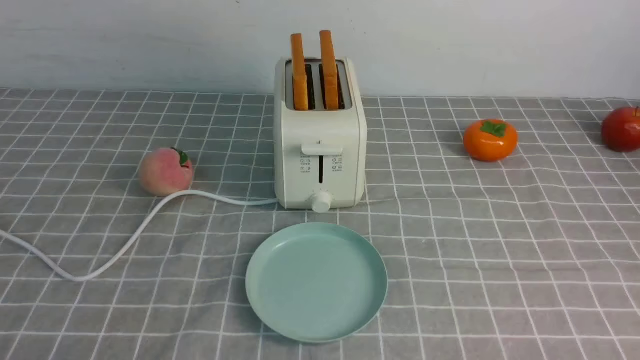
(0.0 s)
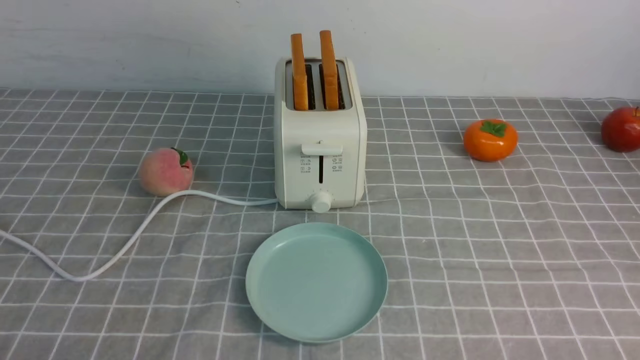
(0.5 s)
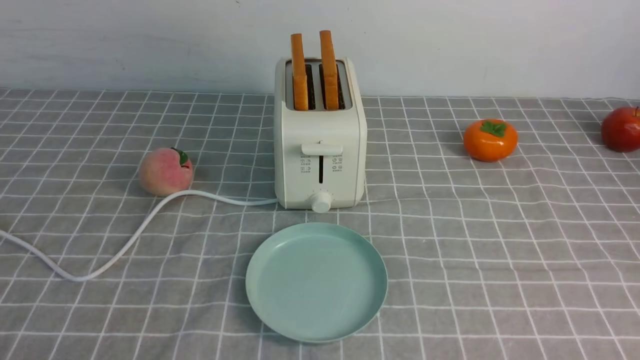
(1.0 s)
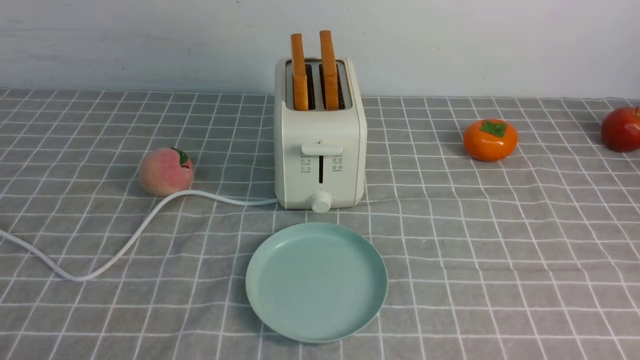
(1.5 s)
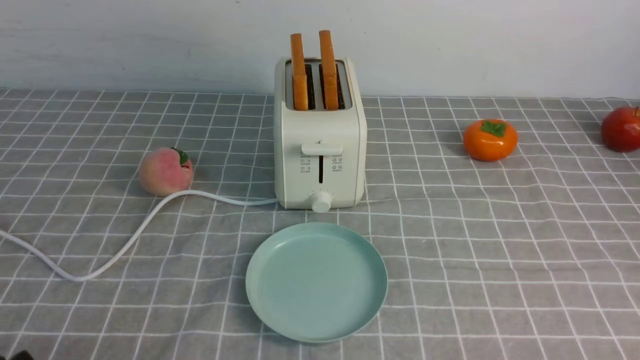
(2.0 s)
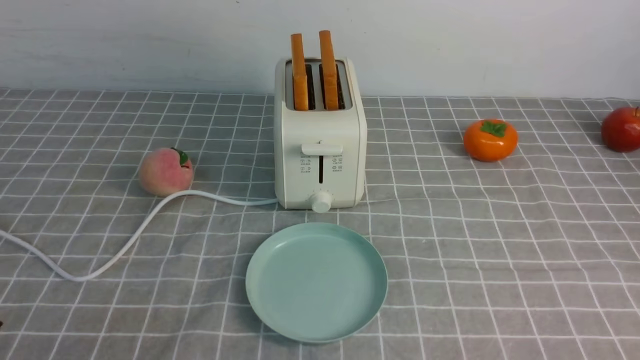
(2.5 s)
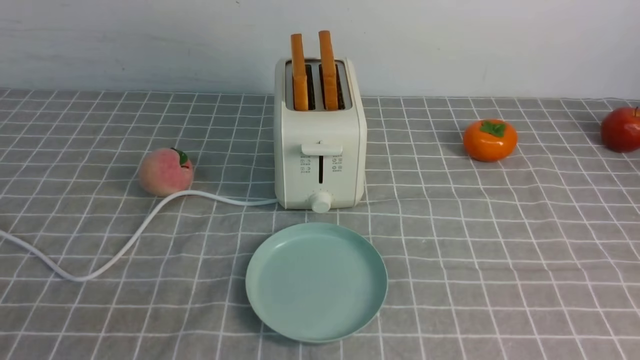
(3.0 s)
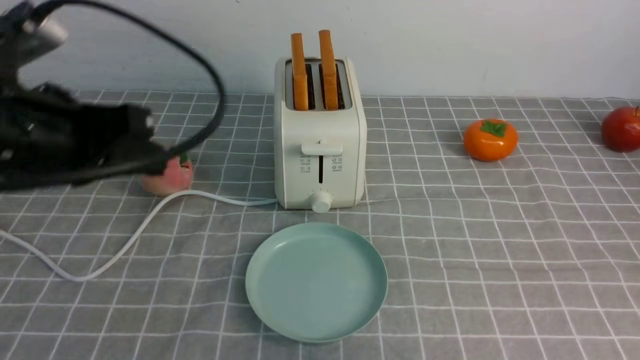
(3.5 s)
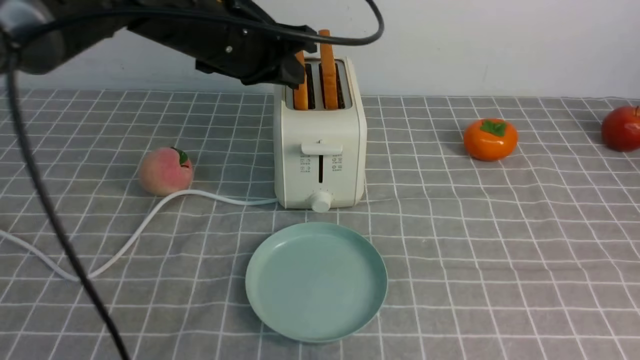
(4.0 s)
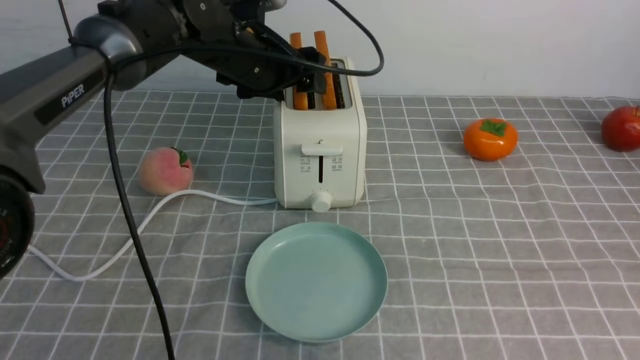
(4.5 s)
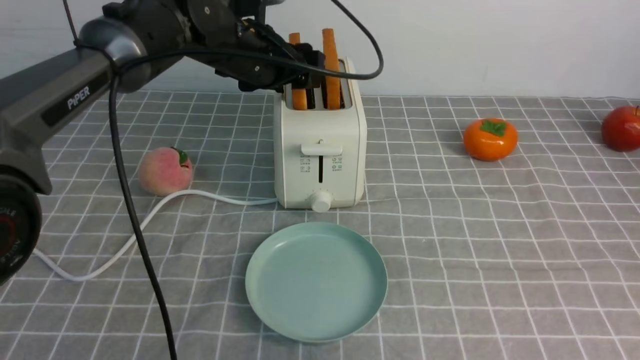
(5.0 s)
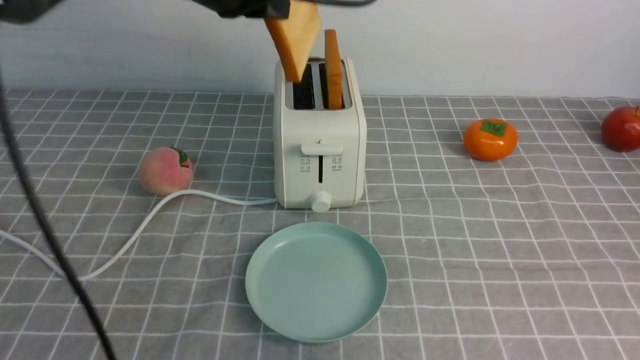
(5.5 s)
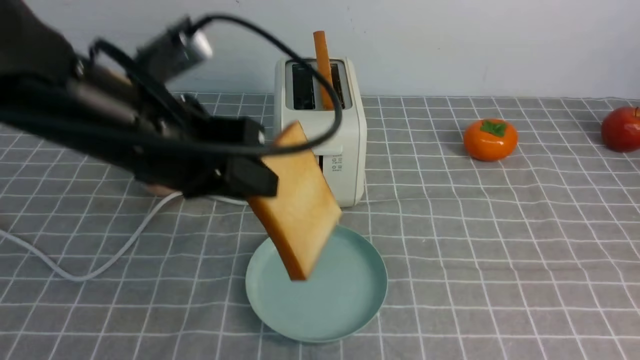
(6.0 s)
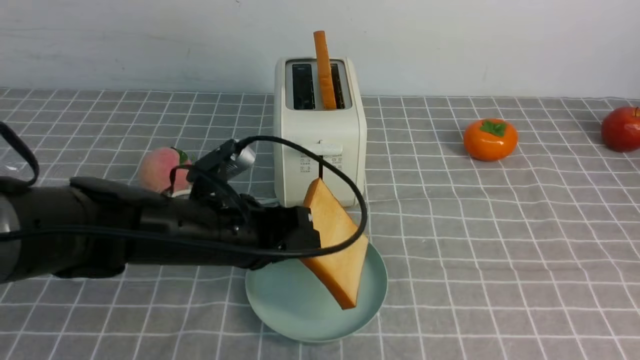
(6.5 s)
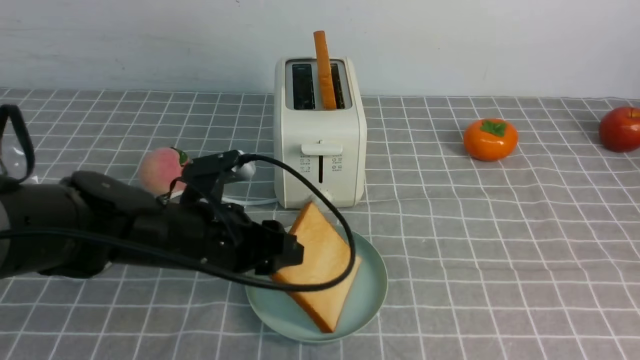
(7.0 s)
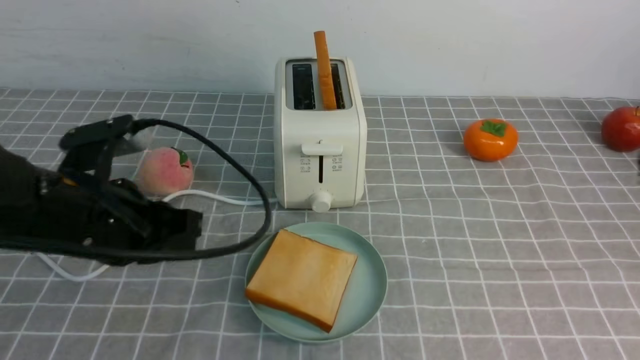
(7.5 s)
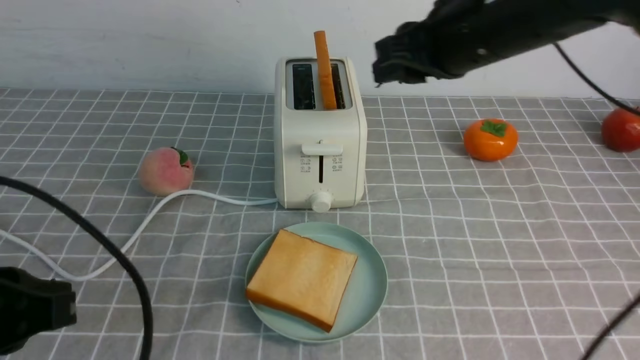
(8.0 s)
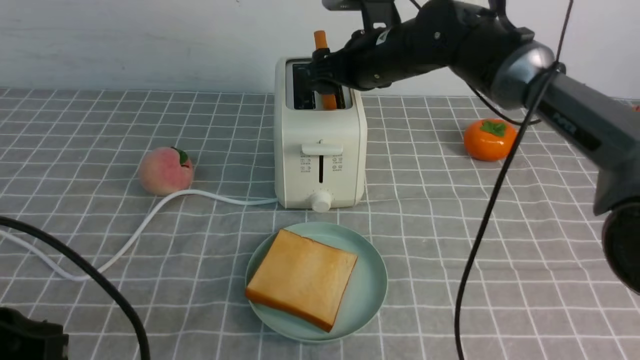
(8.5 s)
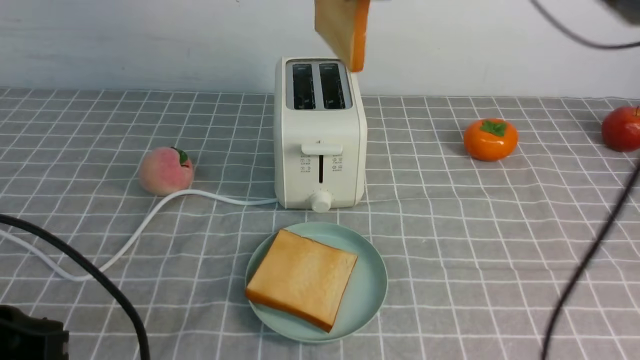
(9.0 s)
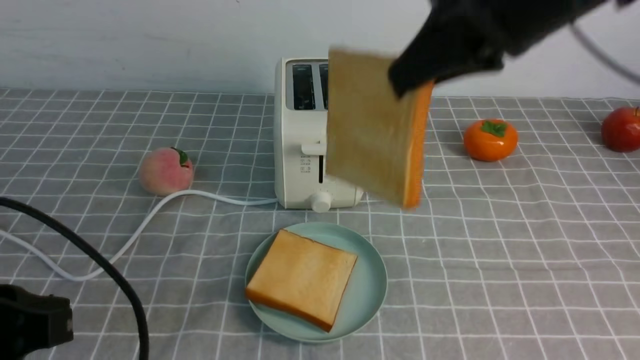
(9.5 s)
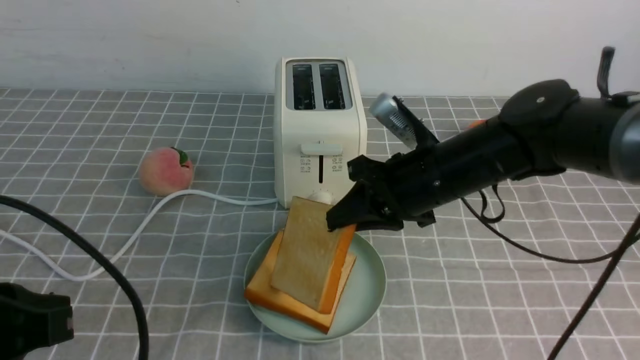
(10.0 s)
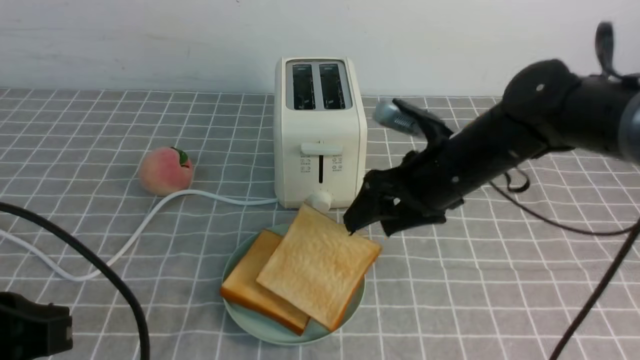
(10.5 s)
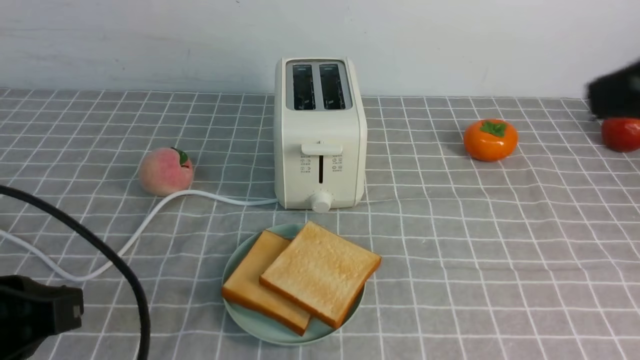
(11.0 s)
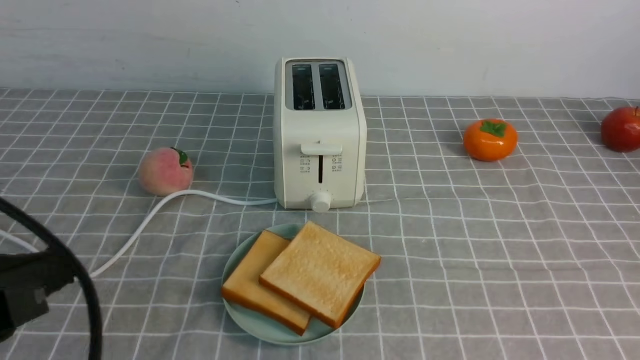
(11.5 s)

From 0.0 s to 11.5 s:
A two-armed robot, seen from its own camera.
Task of the whole recording: take toasted bread from bread machine on grey coffee table place on plate.
Step, from 0.0 s to 5.5 s: use the left arm to take out a slice of bread.
Step, from 6.0 s to 7.0 s: use the left arm to put a slice of bread into the empty plate.
Step, from 7.5 s to 9.0 s: use the right arm to take out a slice of bread.
Step, from 9.5 s to 10.5 s: use the right arm to put a slice of bread into the plate.
From 2.0 s to 4.0 s: The left gripper heads forward, upward and to the right, covering some 40 cm. Meanwhile the right gripper goes approximately 20 cm upward, and closes.
From 4.0 s to 6.0 s: The left gripper heads backward, covering roughly 15 cm, and opens, then closes again.
From 6.0 s to 7.5 s: The left gripper heads downward and to the left, covering approximately 10 cm, and opens and closes again; the right gripper is displaced forward by about 5 cm.
From 7.5 s to 9.5 s: The left gripper moves backward, some 10 cm; the right gripper moves forward and to the left, approximately 15 cm, and opens and closes again.
From 9.5 s to 11.5 s: The right gripper is displaced backward, to the right and downward by some 35 cm, and opens and closes again.

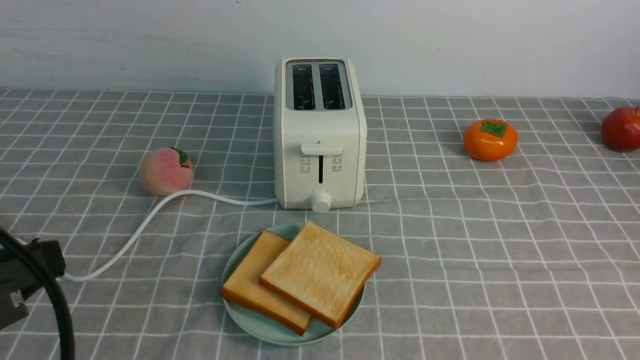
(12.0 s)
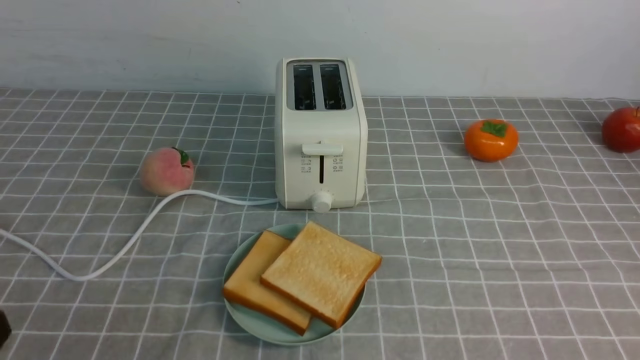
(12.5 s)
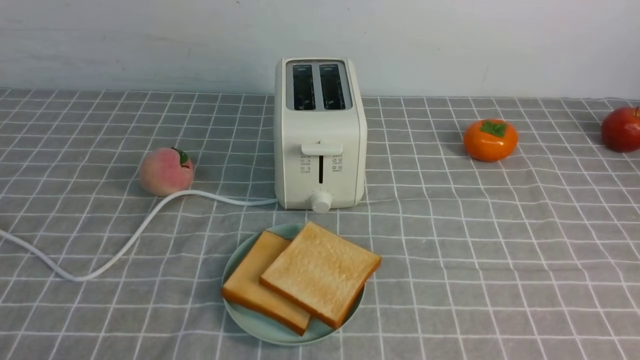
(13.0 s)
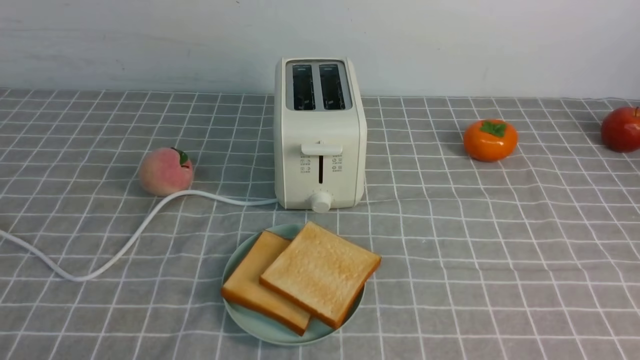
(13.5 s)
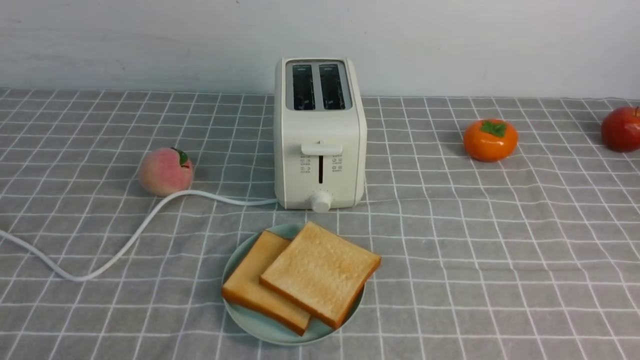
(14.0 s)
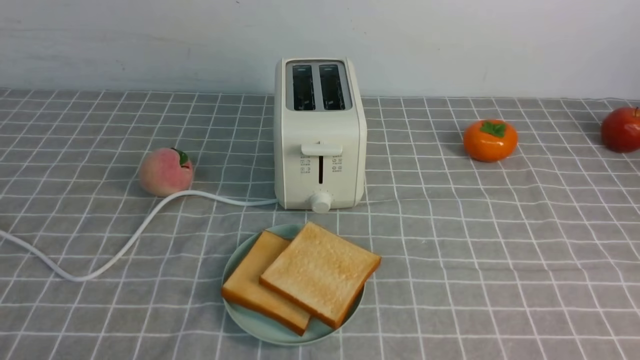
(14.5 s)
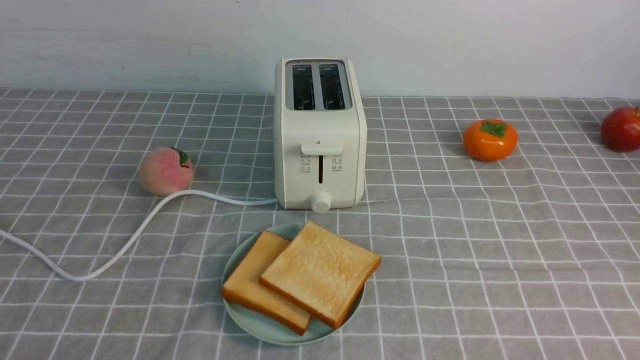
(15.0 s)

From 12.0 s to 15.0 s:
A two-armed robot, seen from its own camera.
Task of the whole recording: take toasted bread from bread machine on grey coffee table place on plate.
From 12.0 s to 13.5 s: The left gripper is displaced downward by about 15 cm.

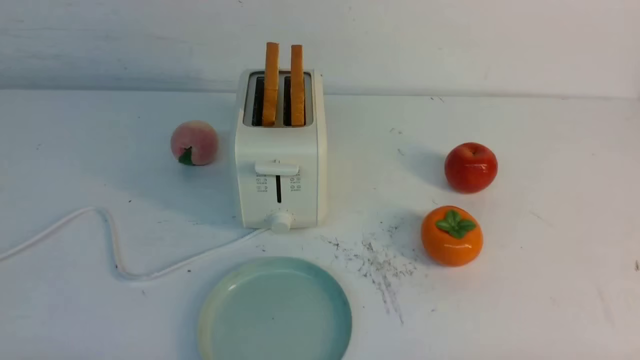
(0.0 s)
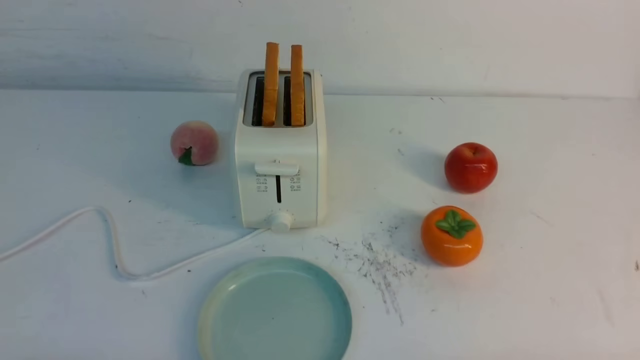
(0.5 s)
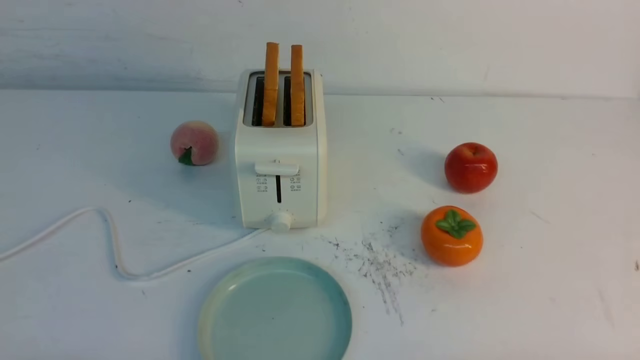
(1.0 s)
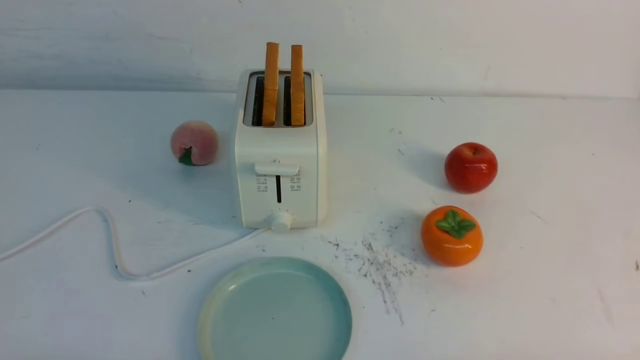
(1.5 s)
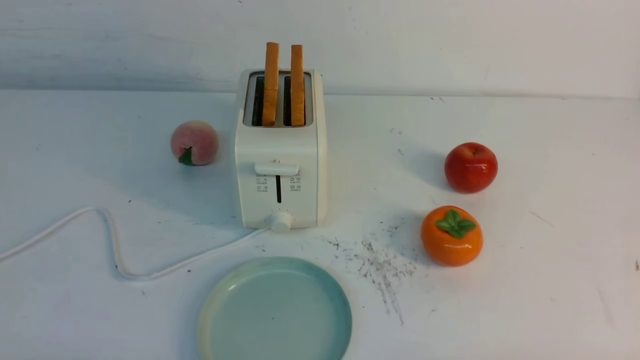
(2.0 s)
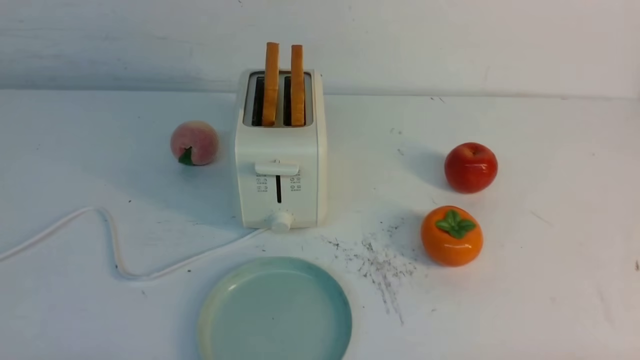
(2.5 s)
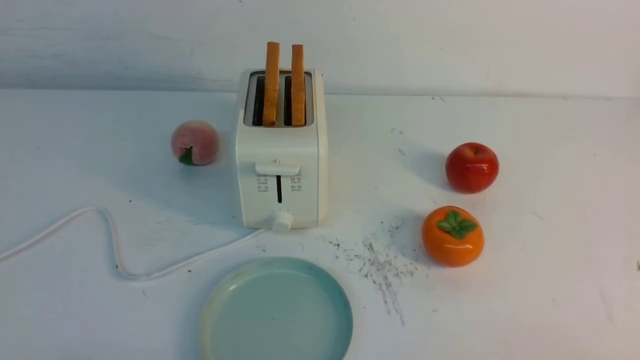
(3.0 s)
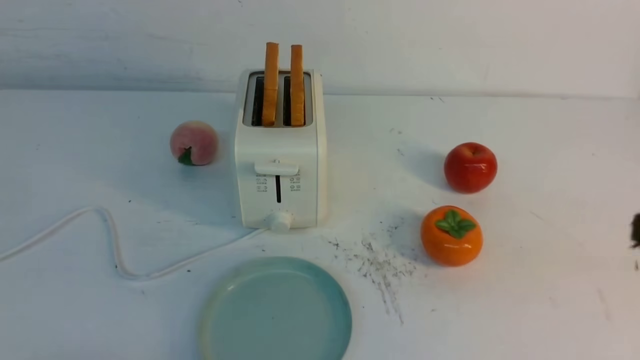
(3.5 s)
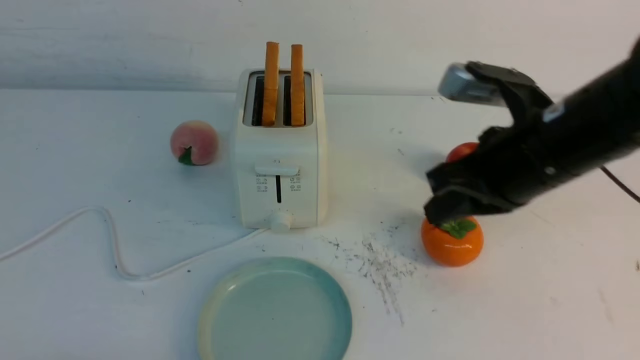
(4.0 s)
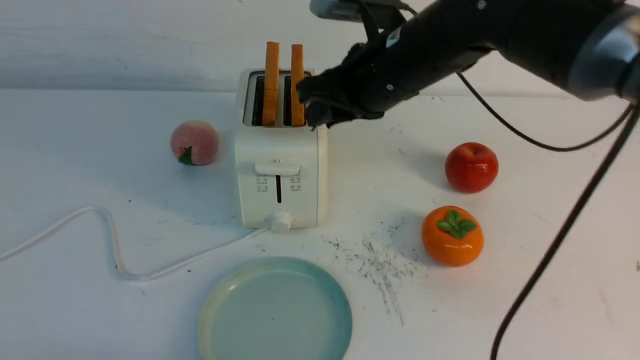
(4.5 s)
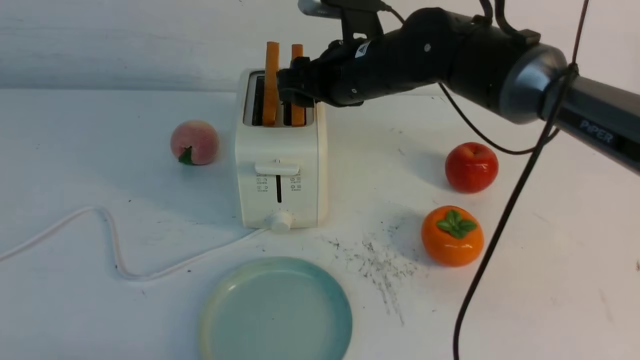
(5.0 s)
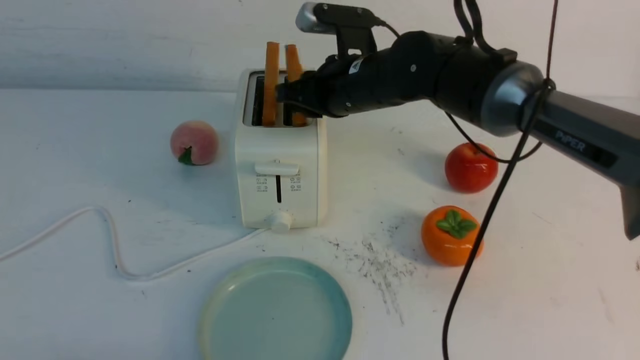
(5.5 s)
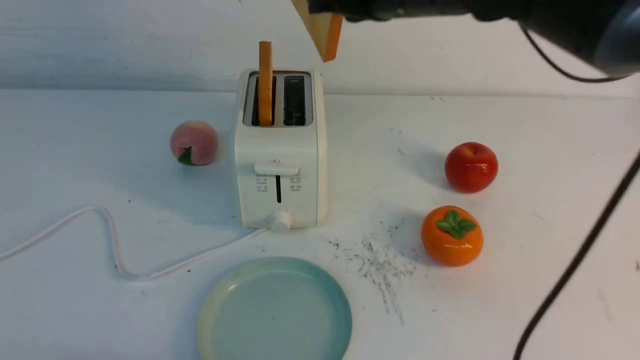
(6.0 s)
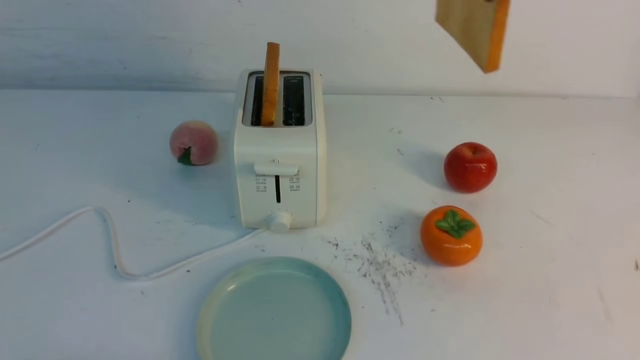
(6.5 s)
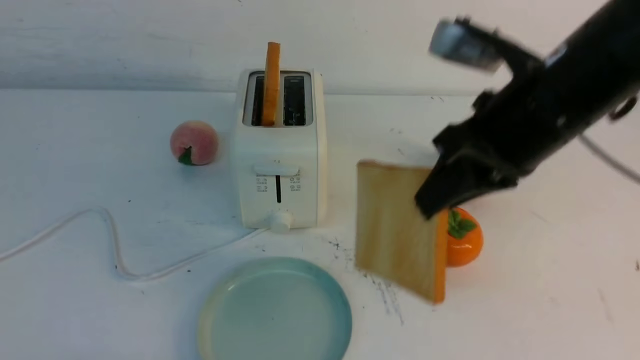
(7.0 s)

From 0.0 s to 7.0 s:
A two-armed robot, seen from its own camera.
Task of the whole recording: take toasted bread from bread machine on white table place on plate.
Step, from 0.0 s to 5.5 s: use the right arm to take out a slice of bread.
From 0.0 s to 2.0 s: Both grippers stay put.
From 3.5 s to 5.0 s: The right gripper goes some 35 cm forward and to the left, and opens its fingers.
From 5.0 s to 7.0 s: The right gripper is displaced backward and to the right by some 15 cm, reaches roughly 15 cm upward, then returns, and closes up.
